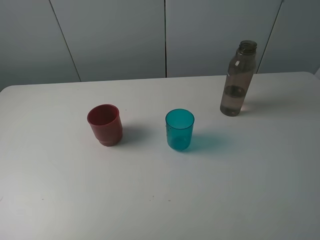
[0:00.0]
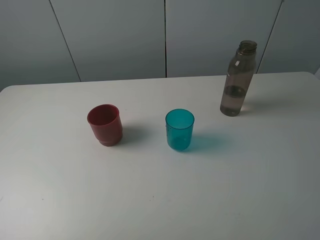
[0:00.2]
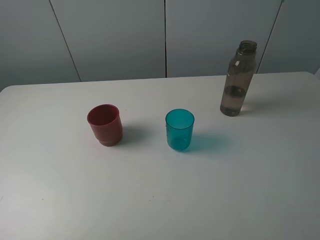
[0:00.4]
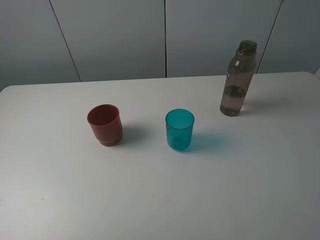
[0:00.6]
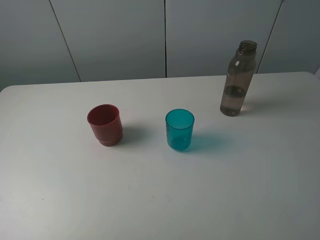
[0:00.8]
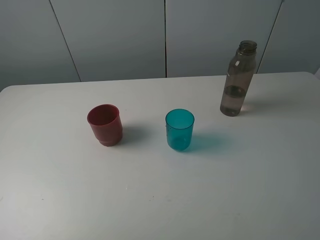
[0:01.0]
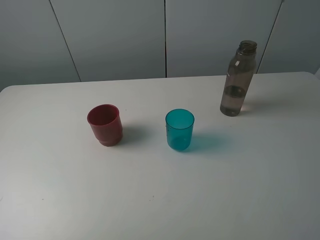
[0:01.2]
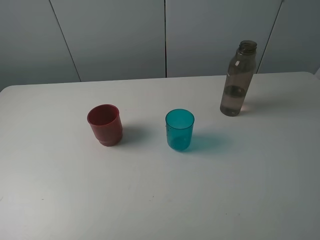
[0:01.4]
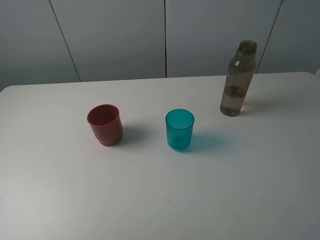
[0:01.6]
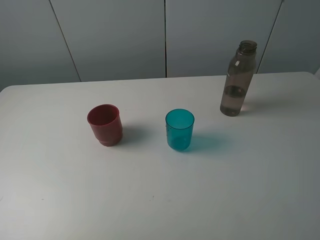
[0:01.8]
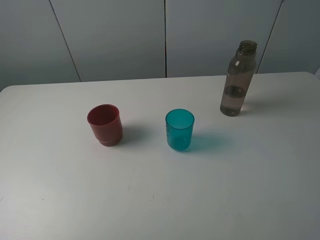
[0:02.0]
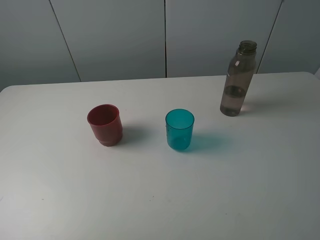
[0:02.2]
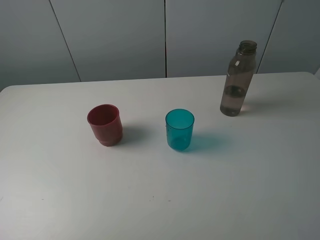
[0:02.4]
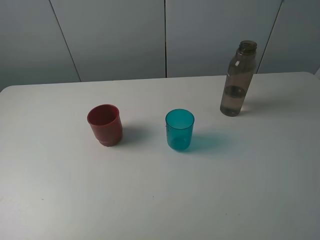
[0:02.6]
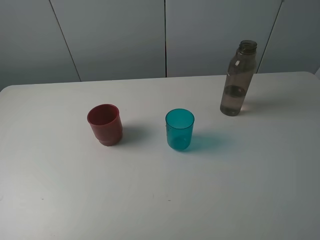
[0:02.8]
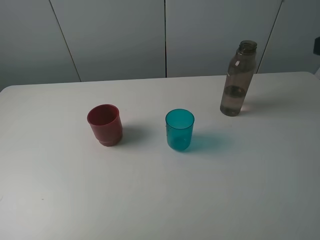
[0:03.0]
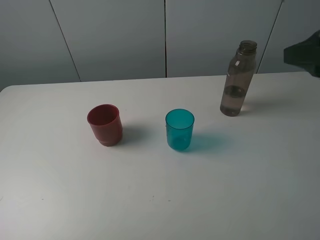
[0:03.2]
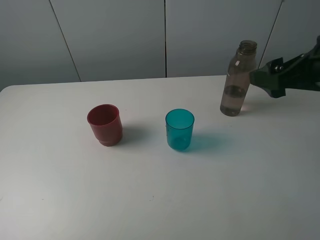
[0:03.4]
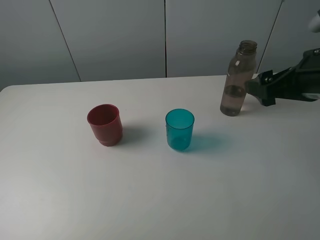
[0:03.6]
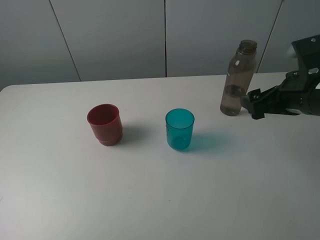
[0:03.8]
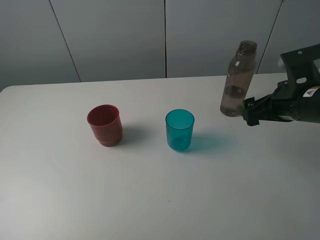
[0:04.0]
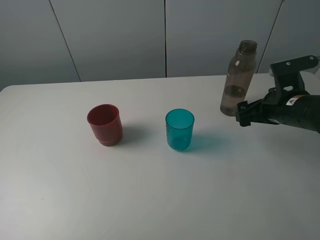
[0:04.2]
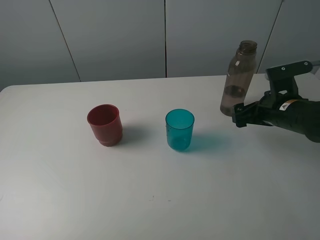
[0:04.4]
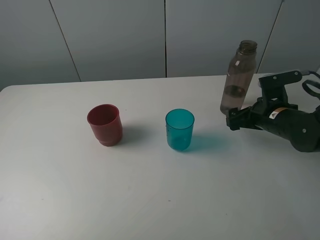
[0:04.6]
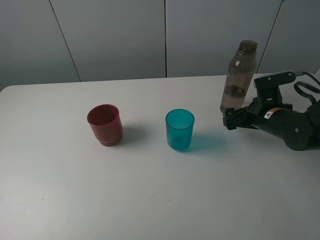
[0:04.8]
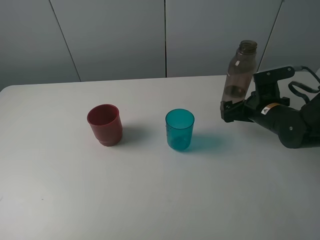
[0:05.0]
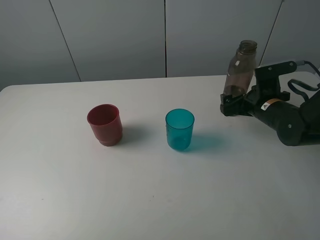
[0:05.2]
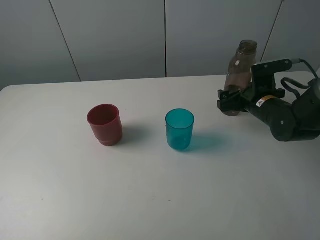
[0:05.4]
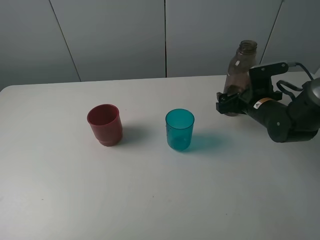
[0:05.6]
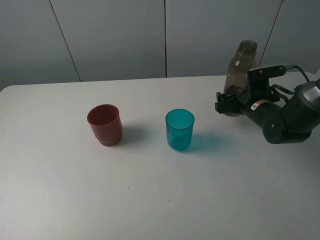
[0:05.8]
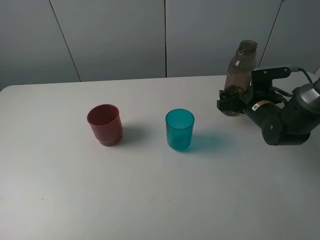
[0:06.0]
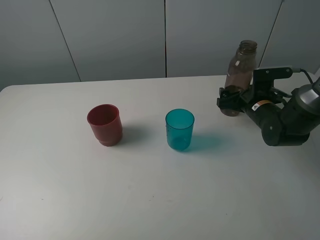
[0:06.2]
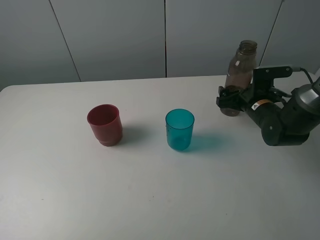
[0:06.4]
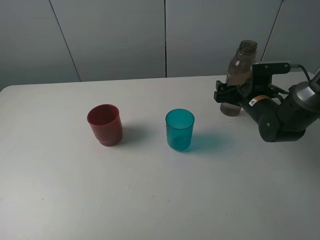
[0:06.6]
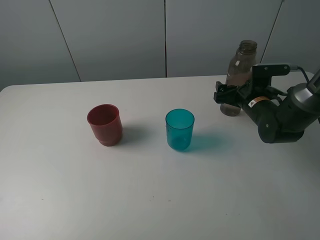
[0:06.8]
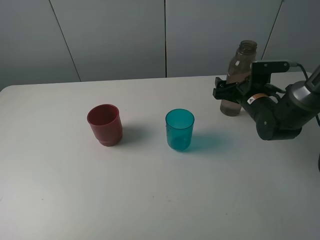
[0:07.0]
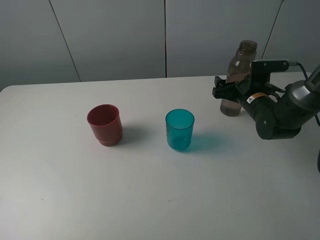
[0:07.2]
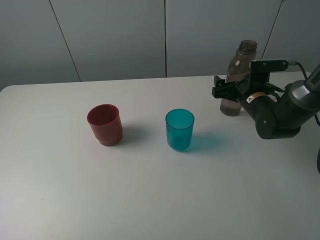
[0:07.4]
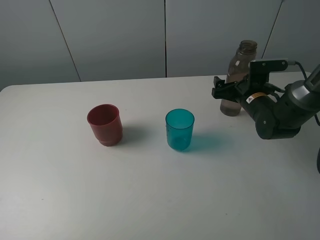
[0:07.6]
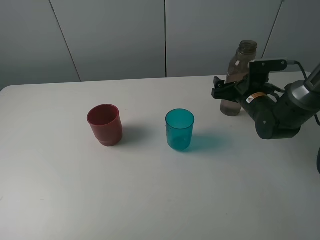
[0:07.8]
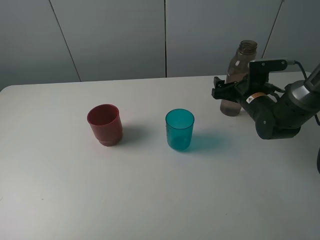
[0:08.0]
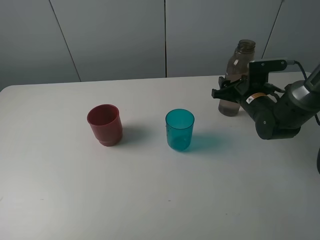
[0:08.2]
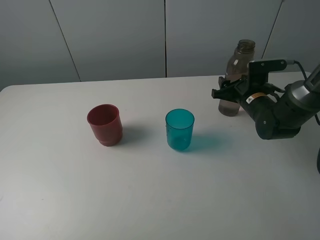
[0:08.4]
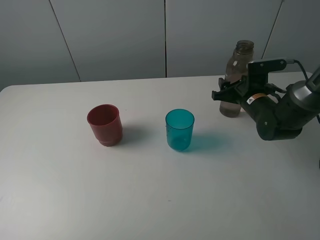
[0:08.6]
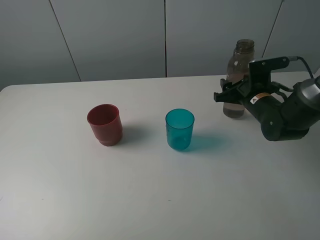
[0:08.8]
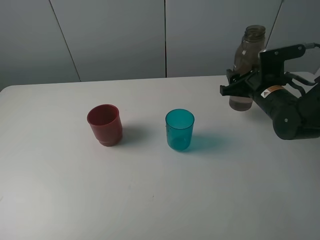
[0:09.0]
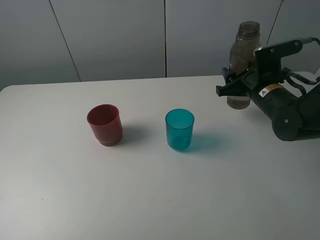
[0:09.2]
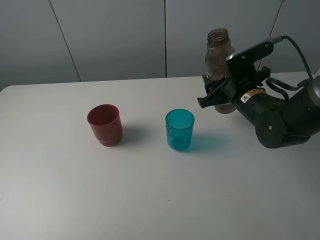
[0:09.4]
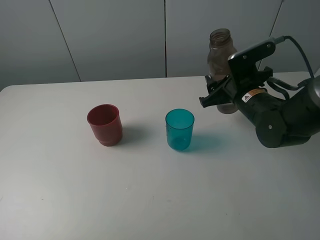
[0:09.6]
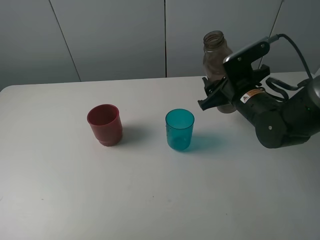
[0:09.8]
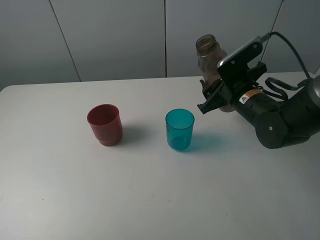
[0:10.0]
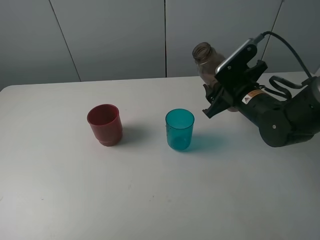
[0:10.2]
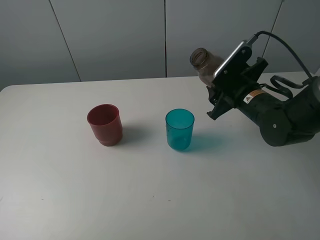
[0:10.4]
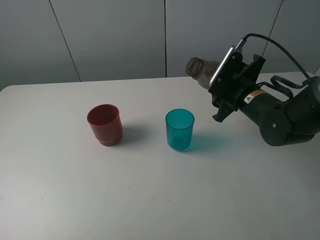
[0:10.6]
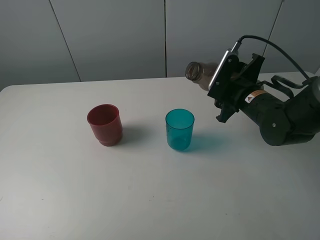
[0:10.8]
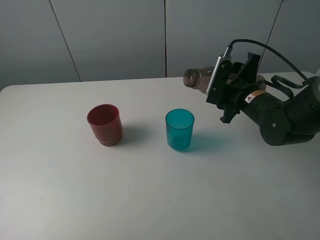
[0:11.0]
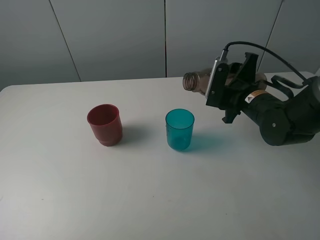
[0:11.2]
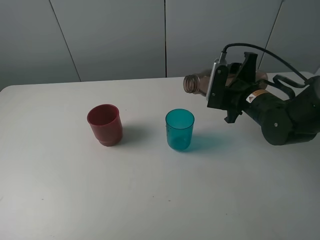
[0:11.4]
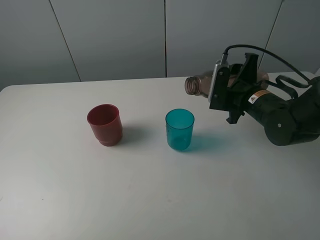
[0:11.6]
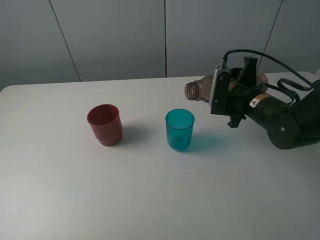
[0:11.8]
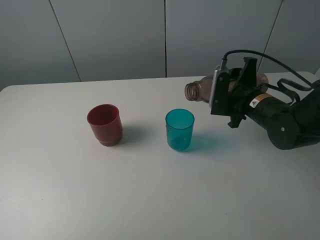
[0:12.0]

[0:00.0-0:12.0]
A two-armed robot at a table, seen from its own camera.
Task of the whole recording: pick up the bottle and pour water into the cup, then pick up the cup containing water and pour it into another cup.
Step, 0:00.0 to 0:08.2: Grasp the brown bottle with the right gripper.
0:00.0 to 0:01.6: The two grippers keep their place.
0:03.0 to 0:04.4: The right gripper shifts roughly 25 cm downward and forward.
0:04.4 to 0:06.0: The right gripper goes roughly 5 cm forward.
0:06.0 to 0:07.6: There are only small adjustments of the grippers.
0:07.6 to 0:09.0: The right gripper moves about 5 cm, and closes up.
0:09.0 to 0:10.4: The right gripper changes place by approximately 5 cm.

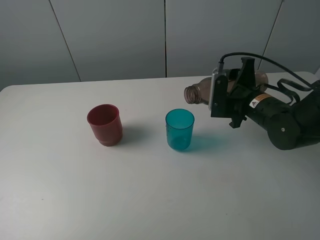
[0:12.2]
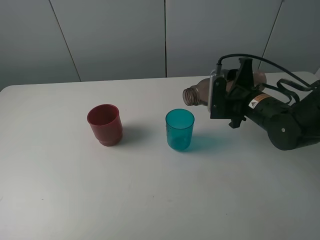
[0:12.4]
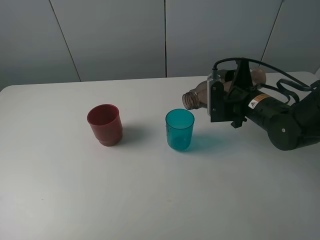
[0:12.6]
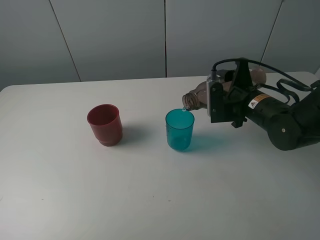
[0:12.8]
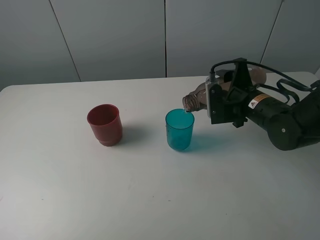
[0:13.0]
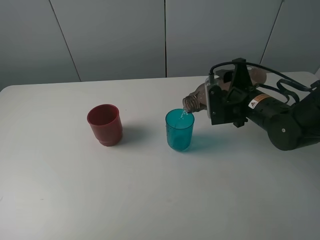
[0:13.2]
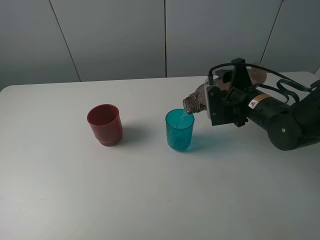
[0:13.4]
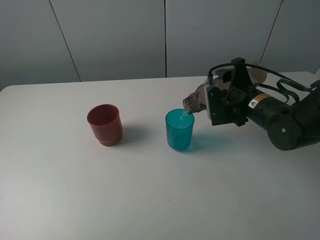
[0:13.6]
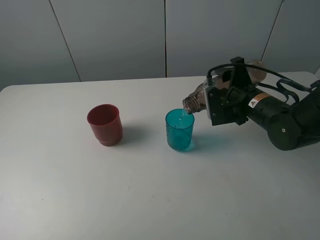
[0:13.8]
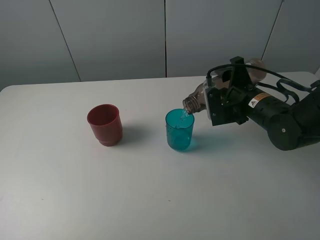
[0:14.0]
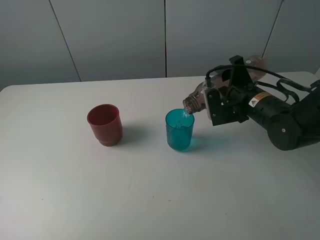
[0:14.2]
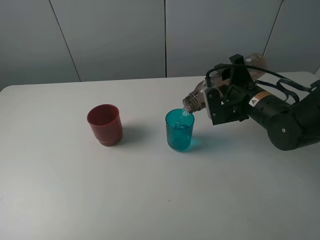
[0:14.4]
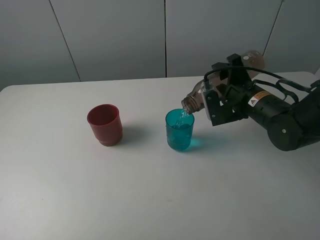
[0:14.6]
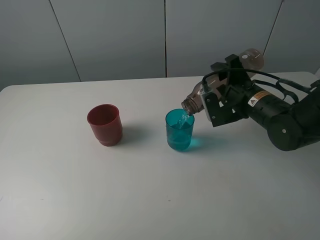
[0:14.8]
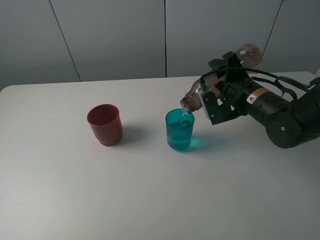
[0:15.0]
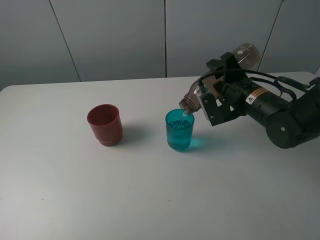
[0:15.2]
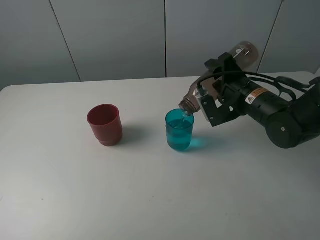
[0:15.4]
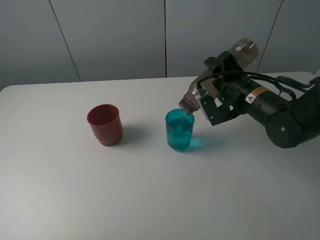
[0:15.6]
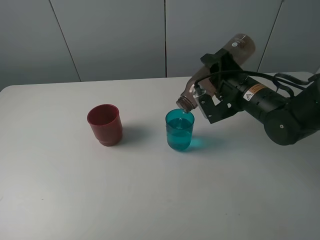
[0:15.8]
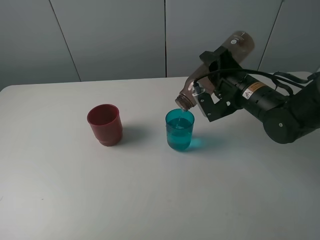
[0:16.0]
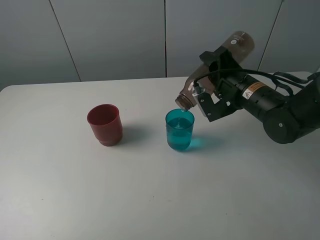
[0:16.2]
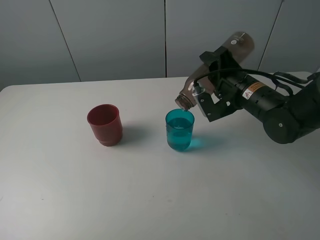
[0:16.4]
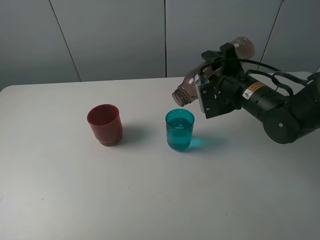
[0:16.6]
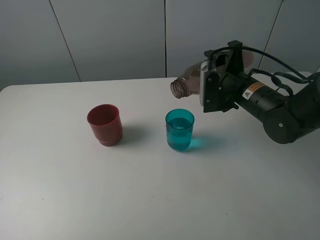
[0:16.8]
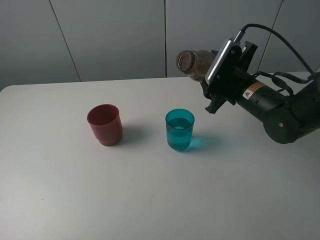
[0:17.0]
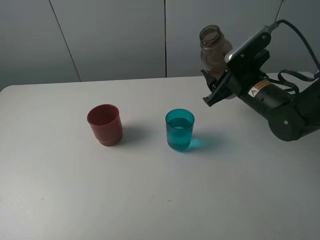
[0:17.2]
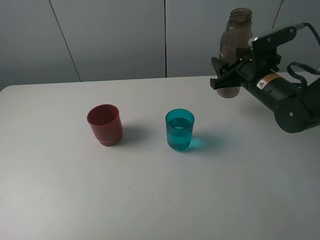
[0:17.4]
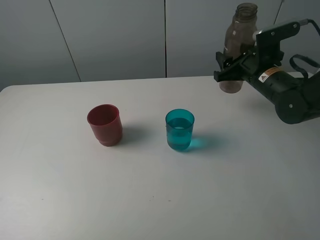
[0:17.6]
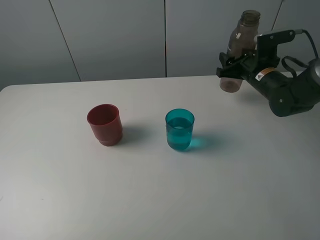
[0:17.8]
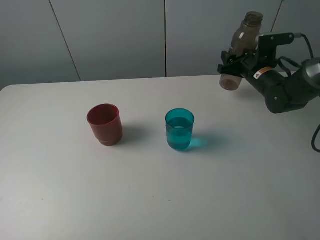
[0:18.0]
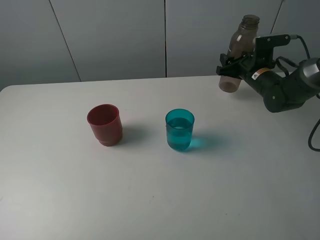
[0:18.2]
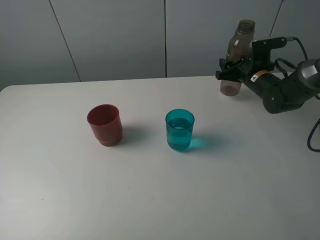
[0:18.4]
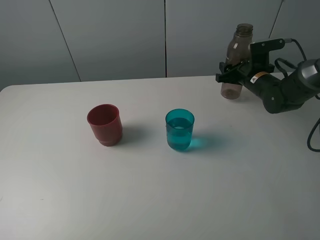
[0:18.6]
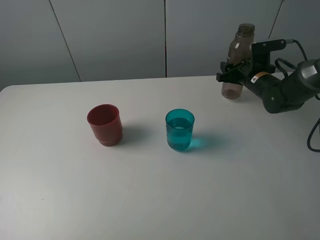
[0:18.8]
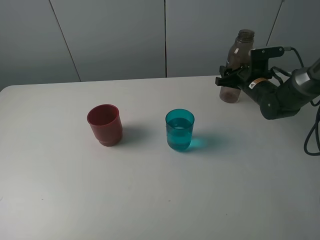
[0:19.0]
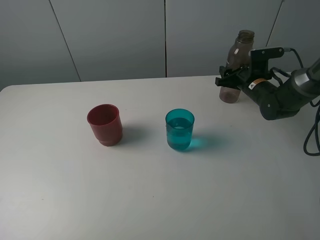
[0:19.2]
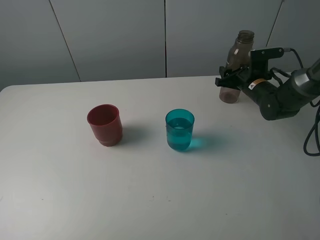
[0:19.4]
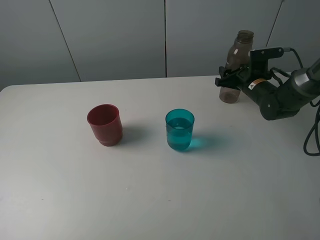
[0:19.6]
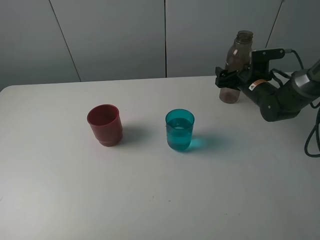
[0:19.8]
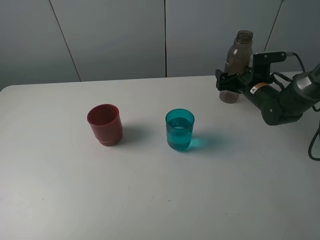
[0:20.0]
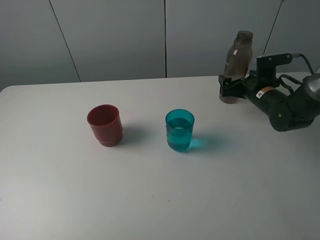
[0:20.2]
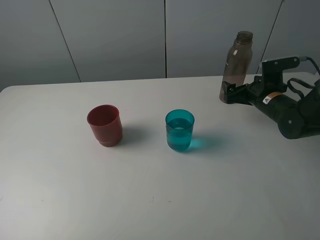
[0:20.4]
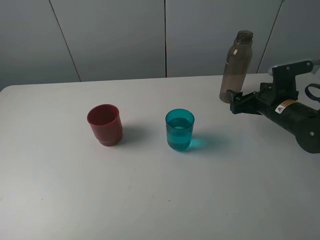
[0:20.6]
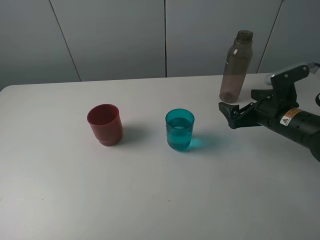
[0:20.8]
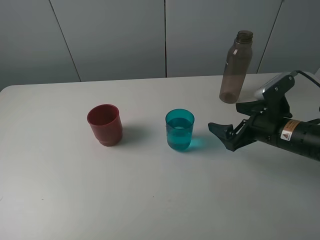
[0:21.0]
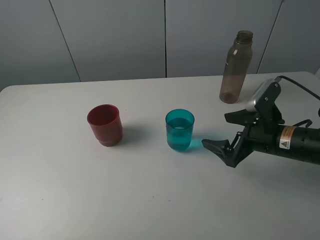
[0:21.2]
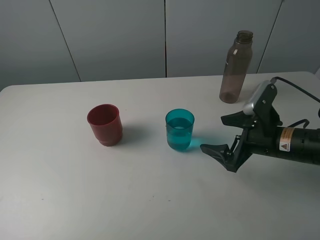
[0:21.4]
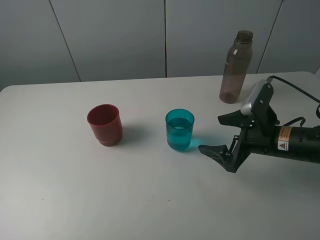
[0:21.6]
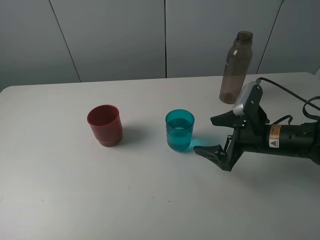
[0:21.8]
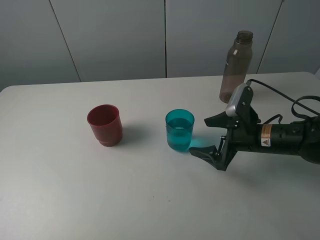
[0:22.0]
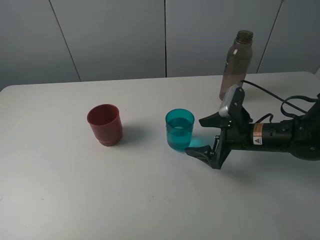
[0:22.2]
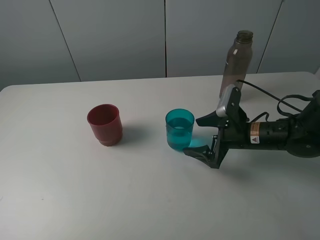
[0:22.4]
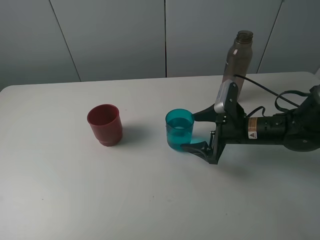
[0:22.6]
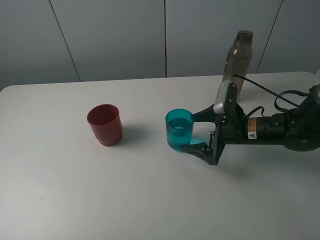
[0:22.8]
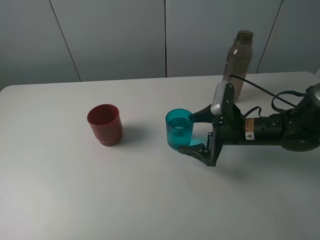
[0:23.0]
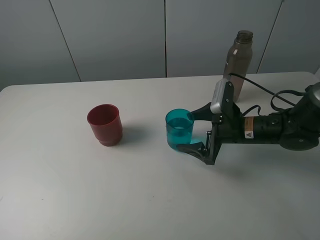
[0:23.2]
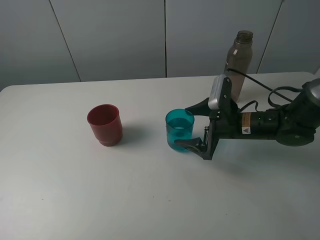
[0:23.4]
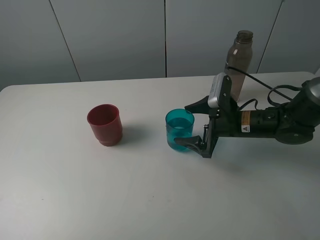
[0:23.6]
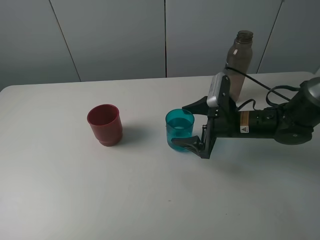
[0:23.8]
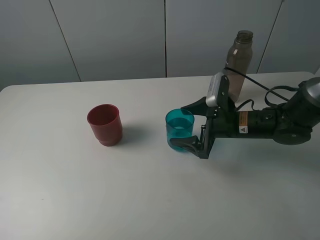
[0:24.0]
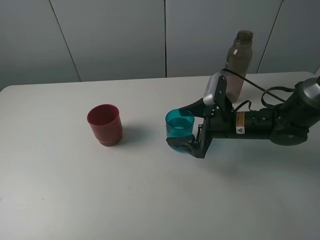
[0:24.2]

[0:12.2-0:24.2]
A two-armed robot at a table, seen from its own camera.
Task of the whole recording: pick up the bottle and pour water into the cup, then pick up the cup containing water and pour it into another cup.
Step, 0:12.2 to 0:16.6: Pour water from brown bottle to blue cup with the right gripper.
Step, 0:16.8 to 0:20.0: Place the brown bottle with the right gripper.
0:12.2 to 0:13.8: The grippers stay close to where they were, moving slightly.
0:13.8 to 0:15.2: There are only small adjustments of the grippers.
0:15.2 to 0:16.6: The grippers move only a little.
0:16.6 to 0:18.2: The right gripper goes roughly 15 cm forward and to the right.
0:18.2 to 0:19.8: The right gripper opens up.
0:19.8 to 0:21.2: The right gripper is displaced backward by approximately 20 cm.
0:21.2 to 0:22.6: The right gripper moves forward, some 5 cm.
0:22.6 to 0:24.2: The grippers make only small movements.
